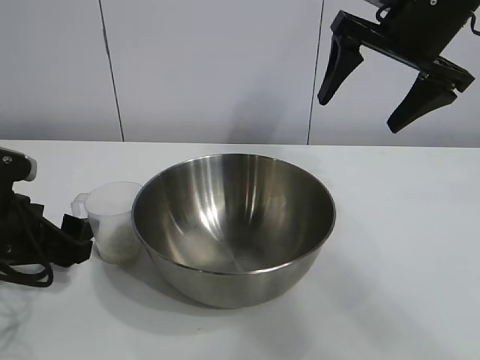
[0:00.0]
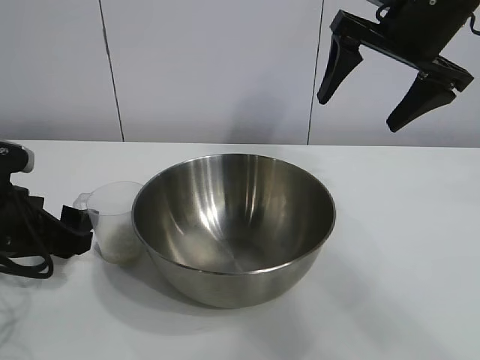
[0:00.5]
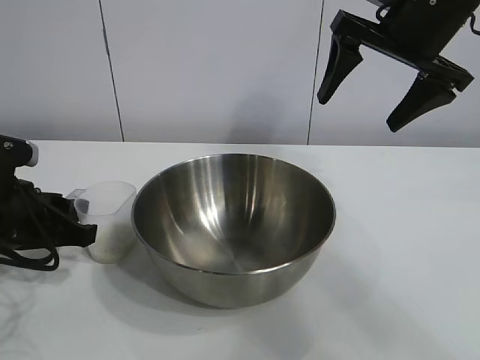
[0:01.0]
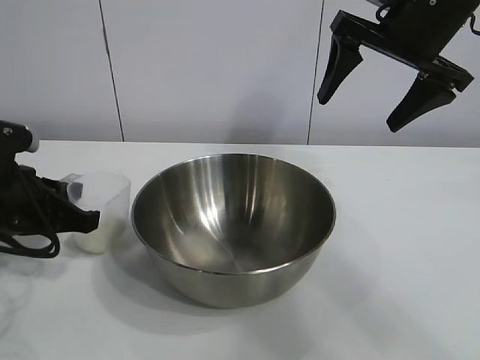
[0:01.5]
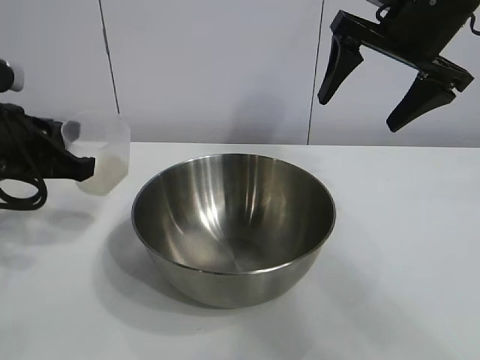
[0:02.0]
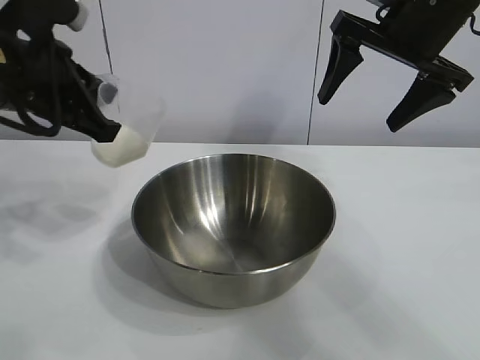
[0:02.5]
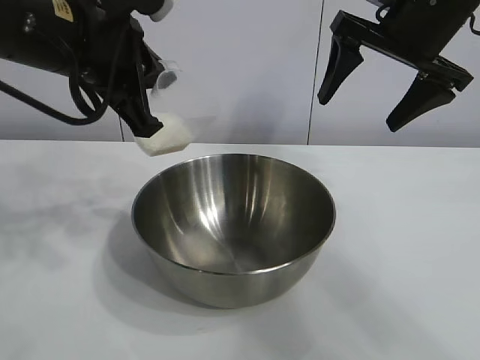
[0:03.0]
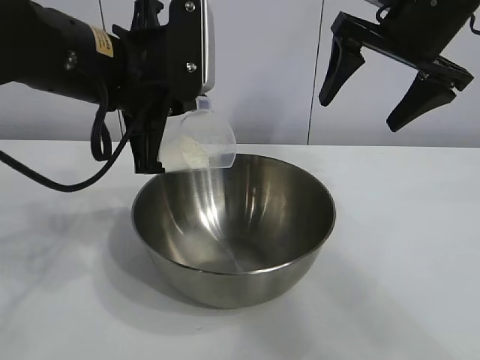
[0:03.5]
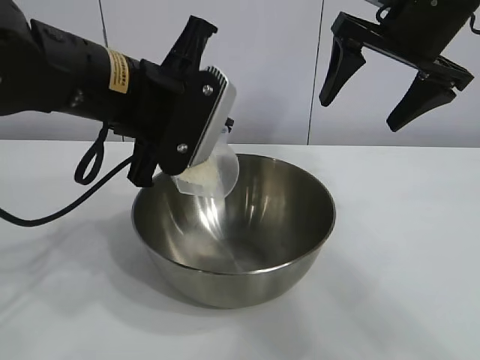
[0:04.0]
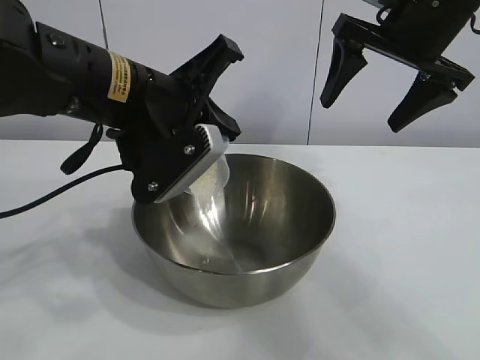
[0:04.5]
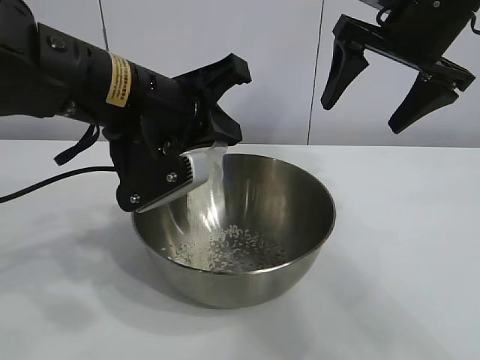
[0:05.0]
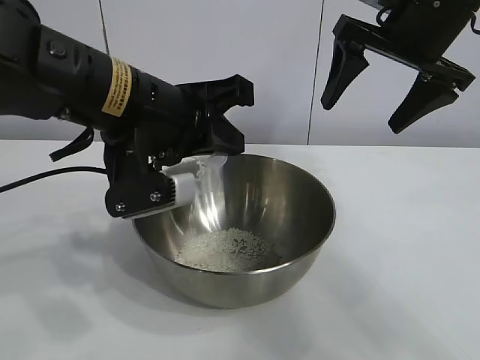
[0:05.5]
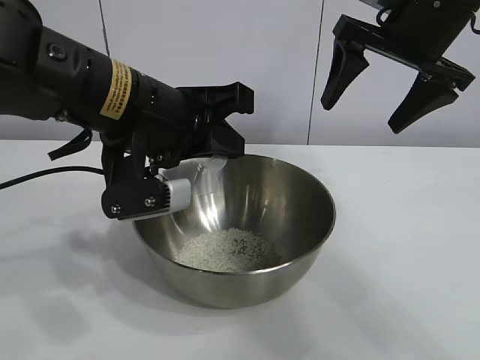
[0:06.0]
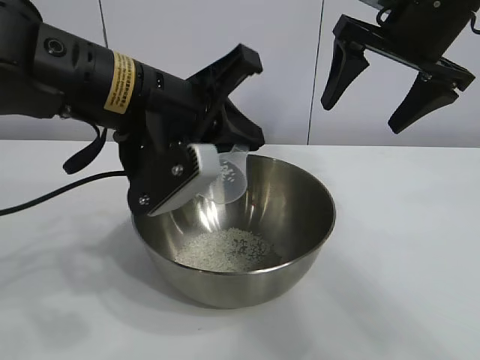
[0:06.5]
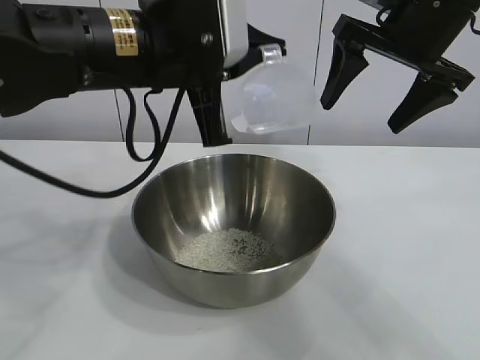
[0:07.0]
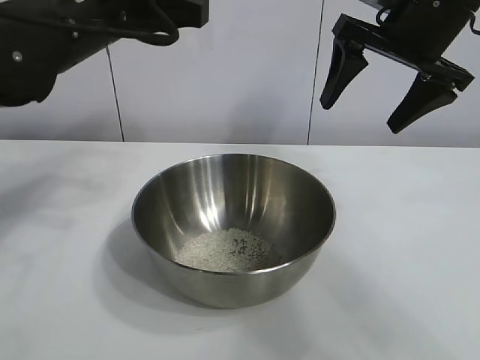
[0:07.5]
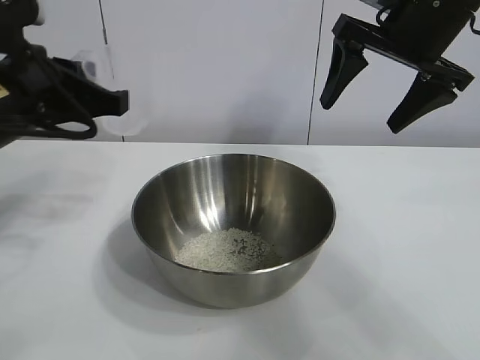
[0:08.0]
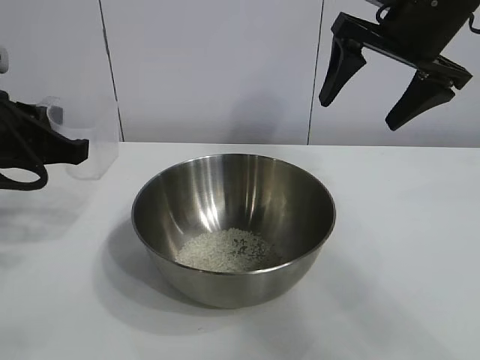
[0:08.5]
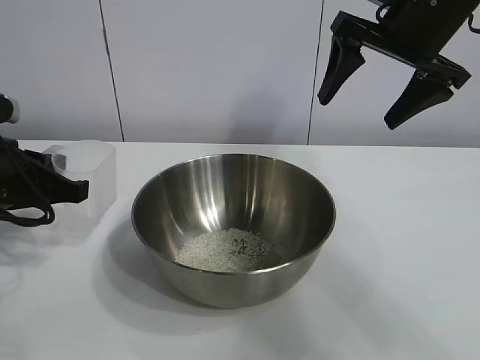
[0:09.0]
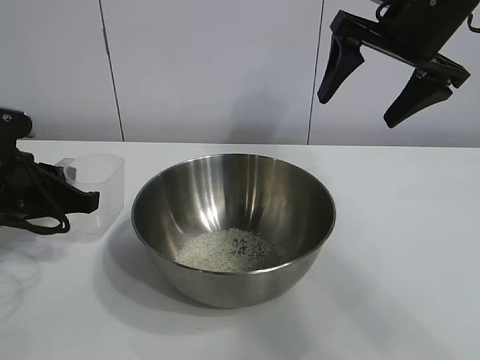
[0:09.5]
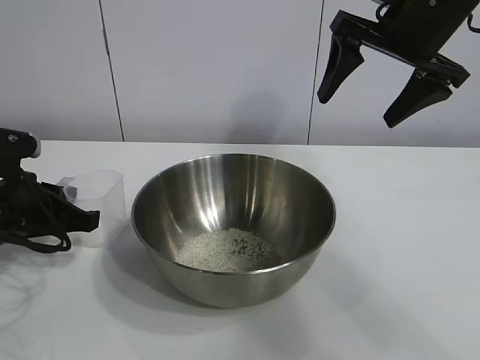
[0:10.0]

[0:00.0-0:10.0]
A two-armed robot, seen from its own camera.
Task of the whole recording: the right gripper grasp the rice container and place it in the center of the table, the left gripper grasp the rice scoop and pour the rice into the rice container.
Step, 0:02.0 to 0:06.0: Pour the rice from the cup into the bowl with the left gripper.
